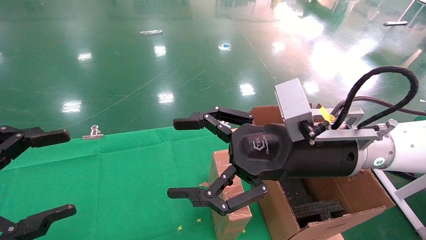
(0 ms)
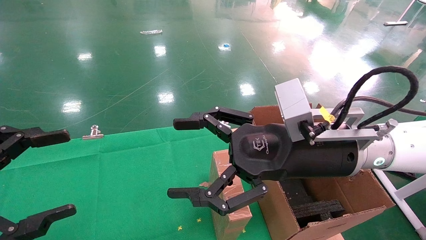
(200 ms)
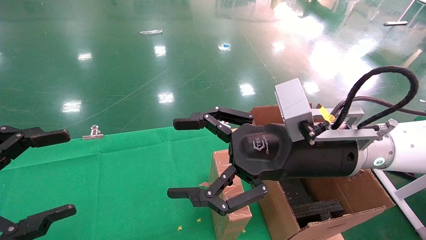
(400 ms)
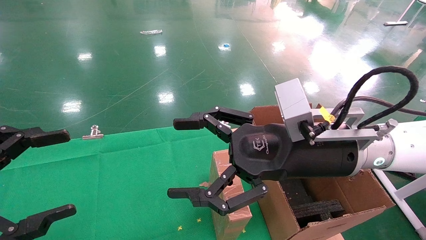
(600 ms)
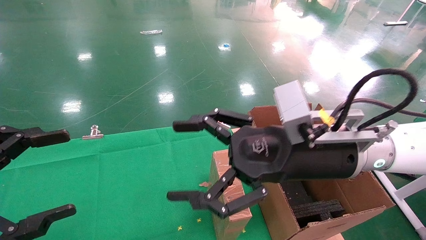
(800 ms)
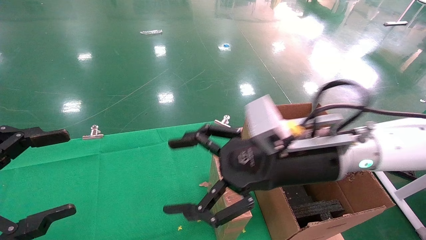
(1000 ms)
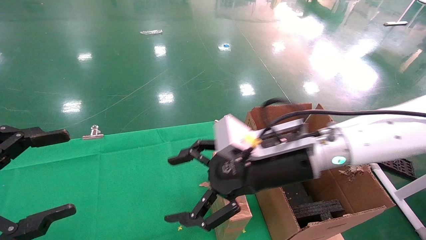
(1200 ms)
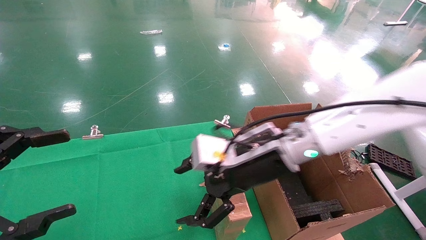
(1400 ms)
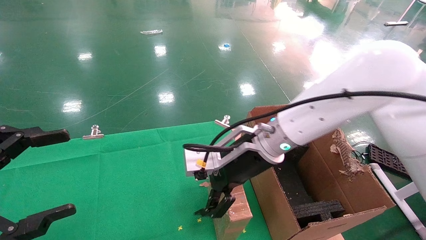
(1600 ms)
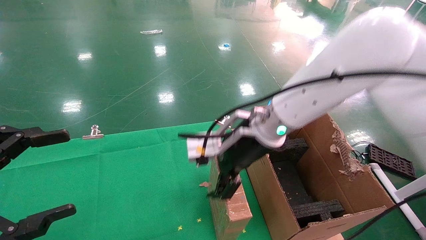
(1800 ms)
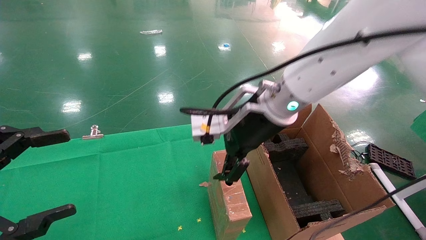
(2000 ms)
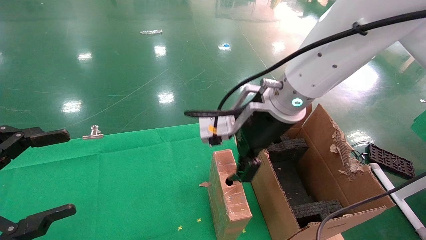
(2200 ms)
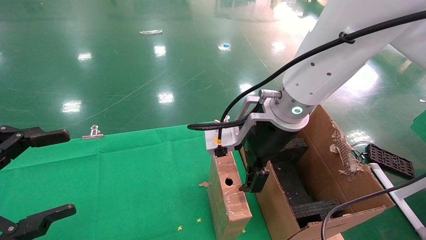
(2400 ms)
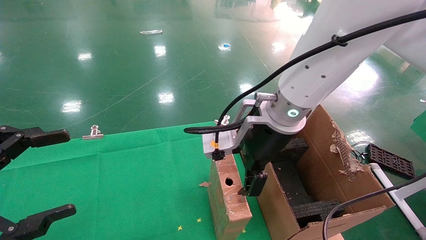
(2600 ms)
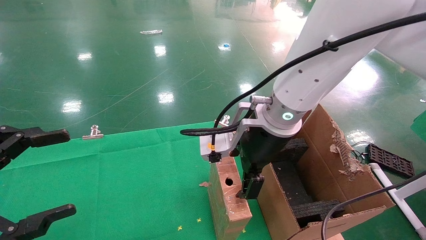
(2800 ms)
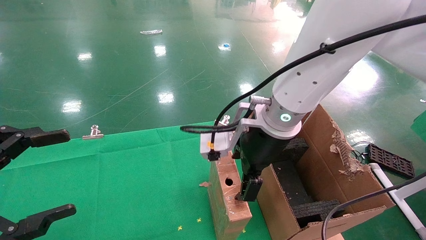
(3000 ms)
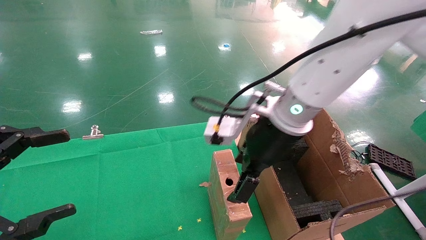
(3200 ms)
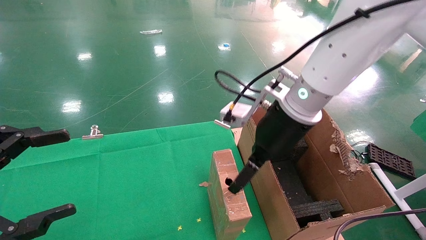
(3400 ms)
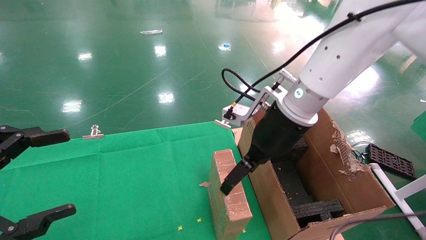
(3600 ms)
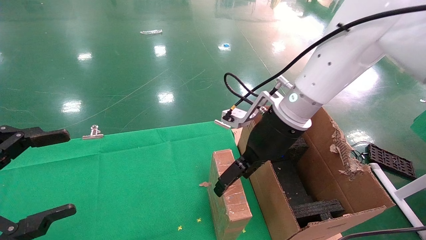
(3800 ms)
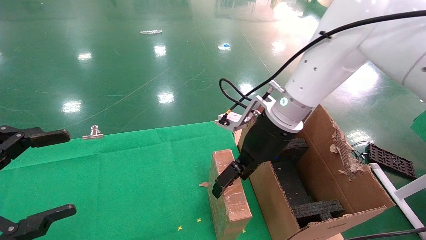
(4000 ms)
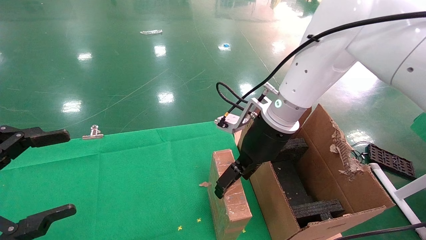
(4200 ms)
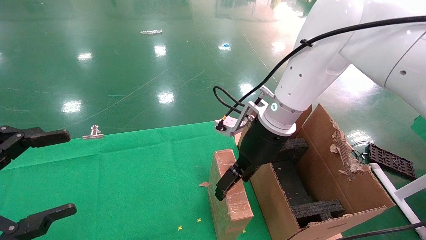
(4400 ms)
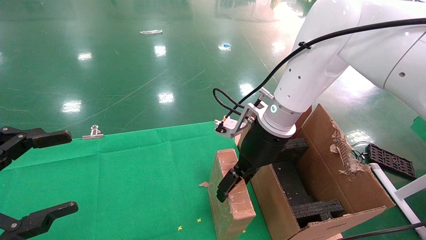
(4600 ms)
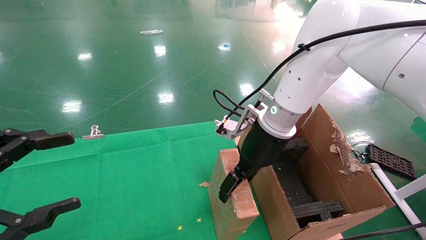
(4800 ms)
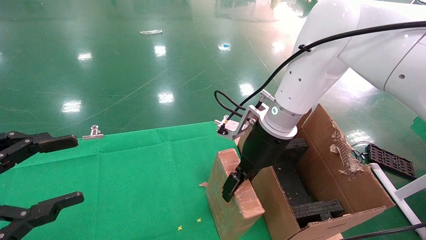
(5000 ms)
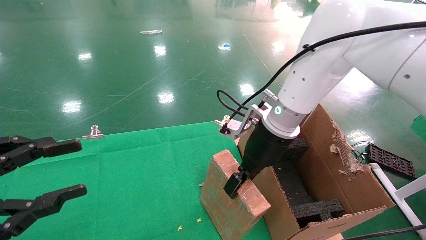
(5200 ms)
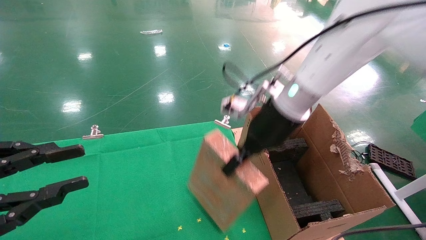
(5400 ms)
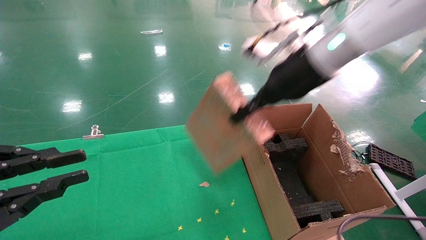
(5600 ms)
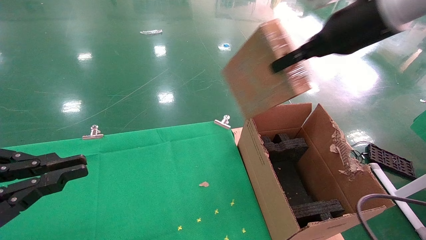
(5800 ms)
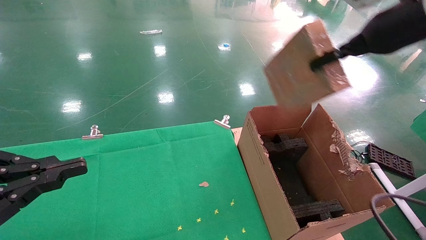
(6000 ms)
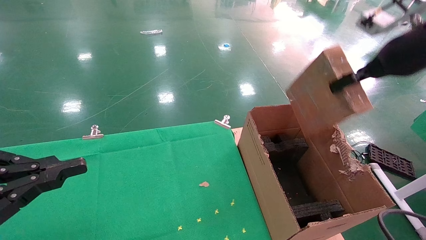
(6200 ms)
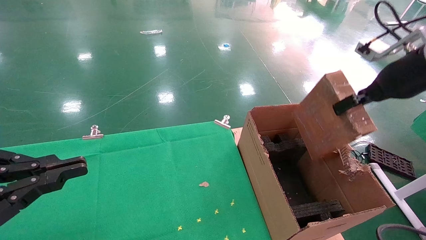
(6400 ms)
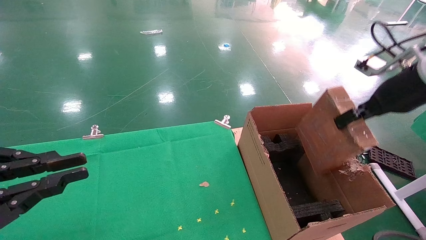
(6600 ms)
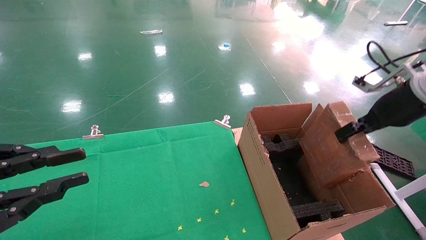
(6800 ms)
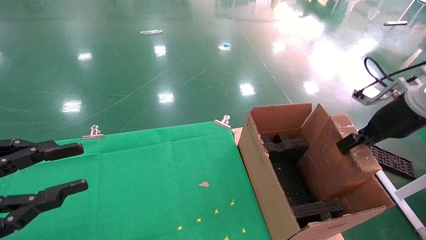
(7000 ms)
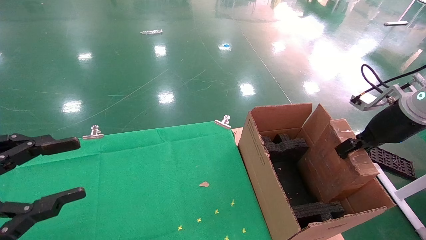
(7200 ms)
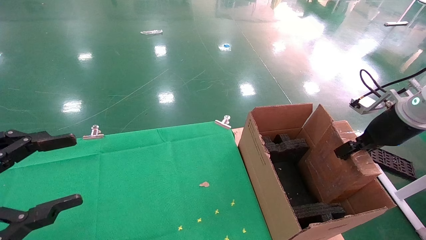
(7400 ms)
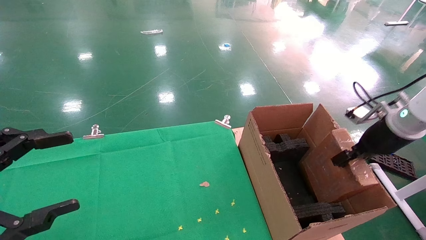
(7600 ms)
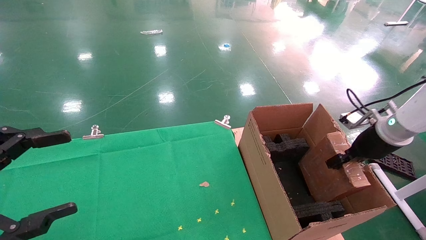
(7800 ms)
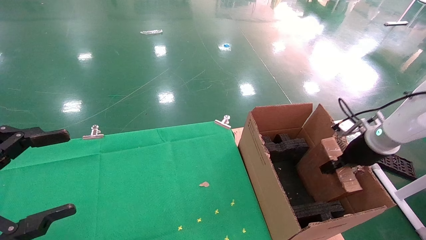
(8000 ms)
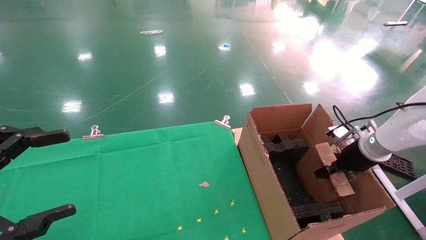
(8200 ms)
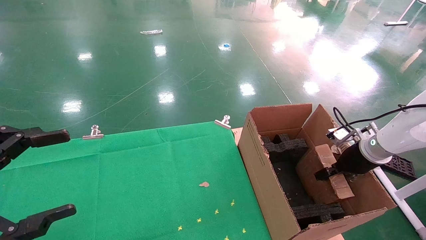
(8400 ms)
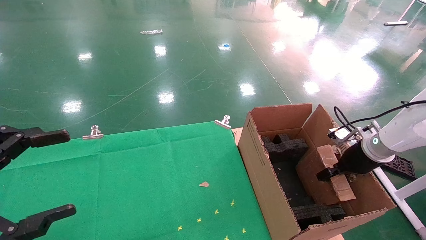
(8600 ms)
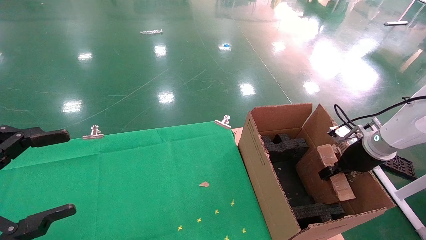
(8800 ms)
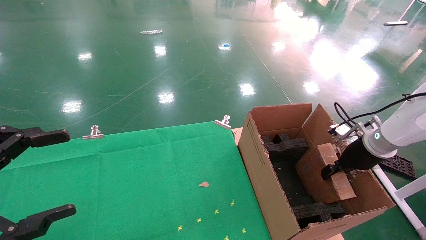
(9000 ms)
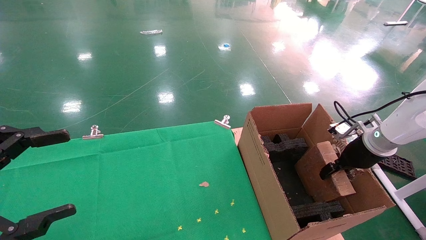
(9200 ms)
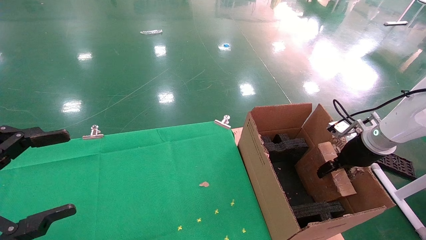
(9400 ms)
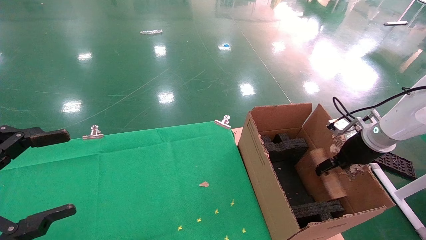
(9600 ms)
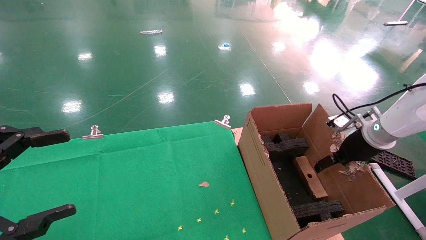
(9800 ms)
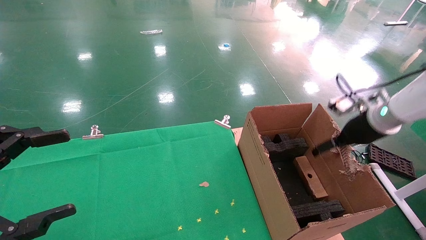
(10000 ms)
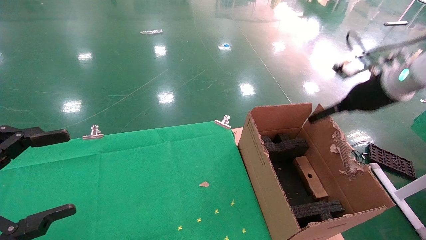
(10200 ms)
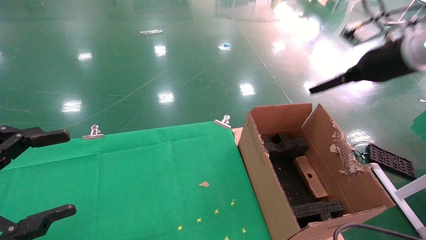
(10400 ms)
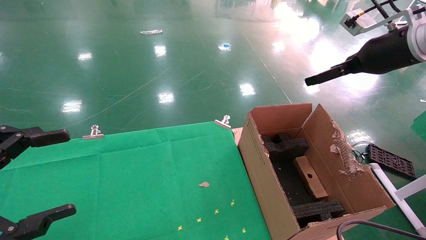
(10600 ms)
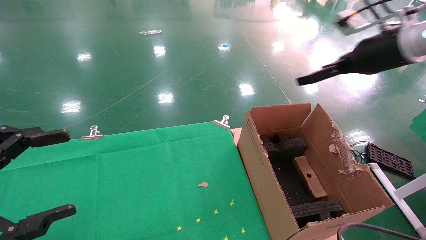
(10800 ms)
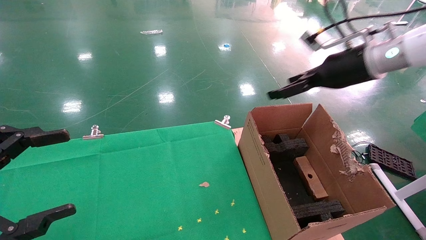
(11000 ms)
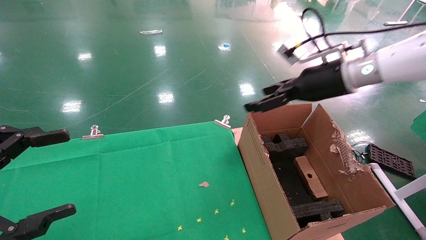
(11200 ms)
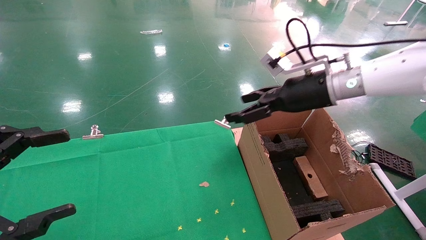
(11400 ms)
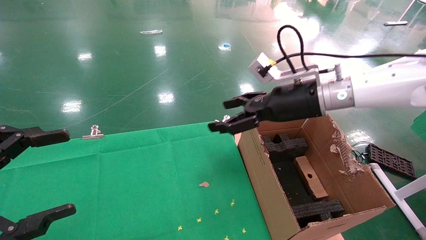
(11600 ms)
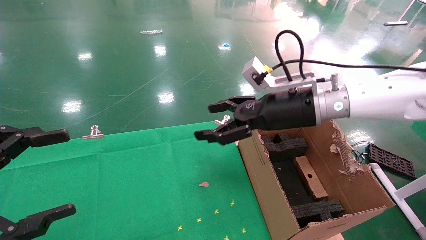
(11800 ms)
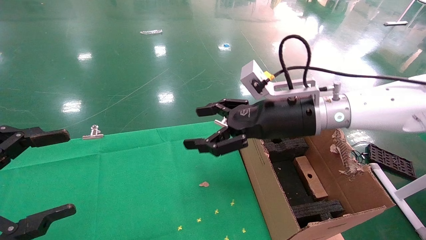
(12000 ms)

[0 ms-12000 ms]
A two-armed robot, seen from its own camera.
Task of the whole recording: using a robotic arm to pick up a cardboard box and palace it the carton.
Step, 1000 ms to 5200 ms: Pick up the mouse and the power cord paper box.
Step, 5400 ms to 9800 ms: Place the mouse and the power cord paper box into the container.
0 ms to 1600 ms: The right gripper moves forward and to the left, about 10 cm.
1600 ms to 3000 ms: The right gripper ends up about 5 cm from where it was.
3000 ms to 4400 ms: The right gripper moves forward, approximately 5 cm.
4400 ms to 6000 ms: The right gripper travels to the right and upward by roughly 25 cm, and closes. The left gripper closes.
6000 ms to 7600 ms: The right gripper shifts roughly 20 cm downward and to the right, while the left gripper opens up.
7600 ms to 9000 ms: The right gripper is displaced downward by about 5 cm.
9000 ms to 10400 ms: The right gripper shifts about 20 cm upward, and opens up.
10400 ms to 12000 ms: The right gripper goes about 25 cm to the left and downward.

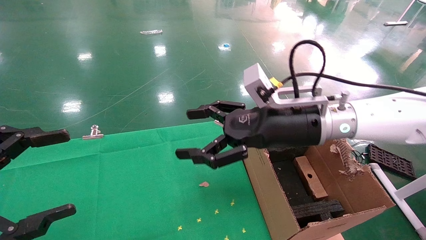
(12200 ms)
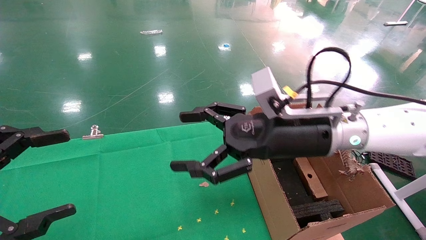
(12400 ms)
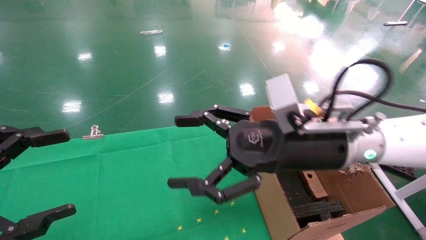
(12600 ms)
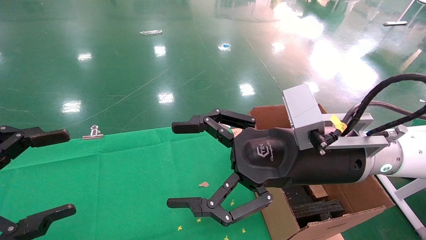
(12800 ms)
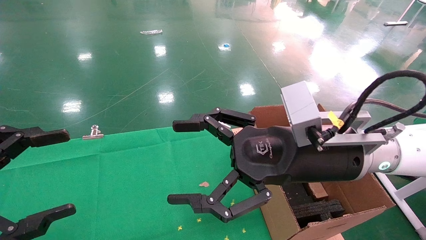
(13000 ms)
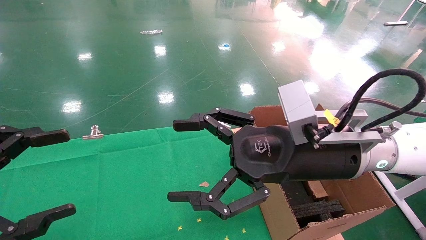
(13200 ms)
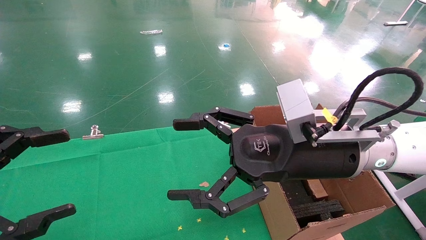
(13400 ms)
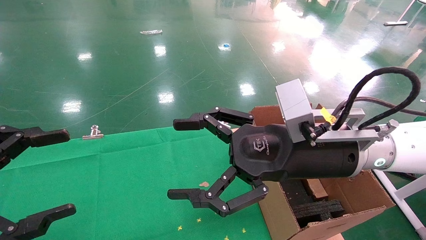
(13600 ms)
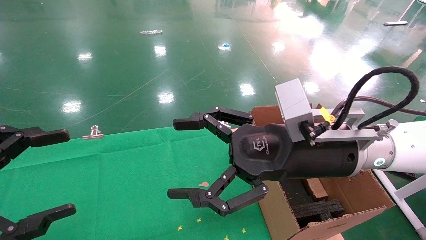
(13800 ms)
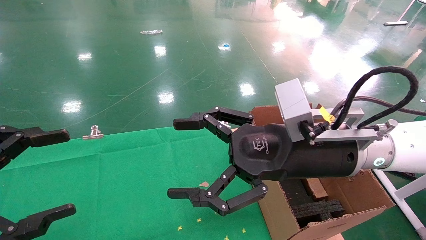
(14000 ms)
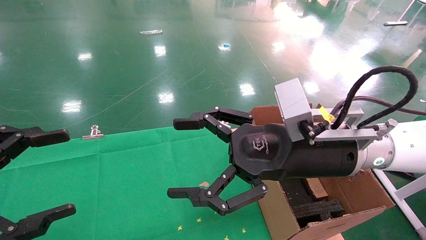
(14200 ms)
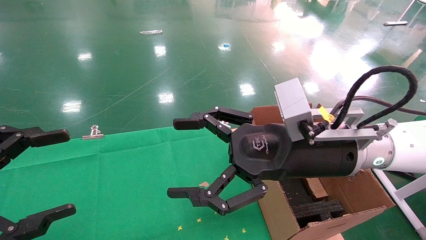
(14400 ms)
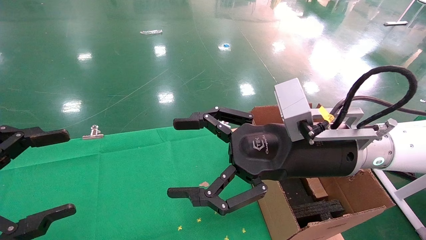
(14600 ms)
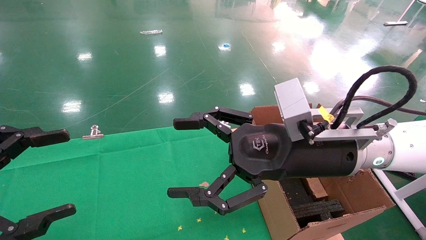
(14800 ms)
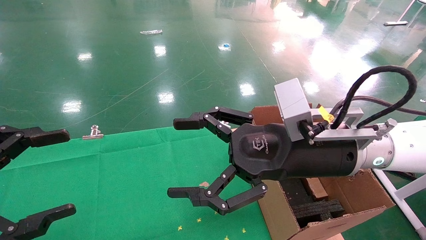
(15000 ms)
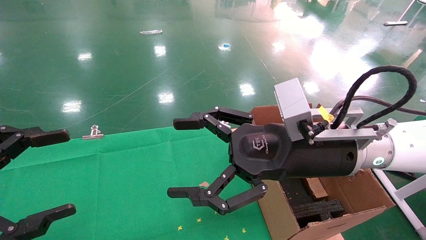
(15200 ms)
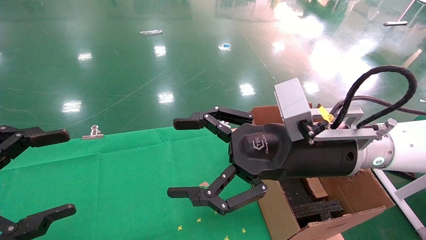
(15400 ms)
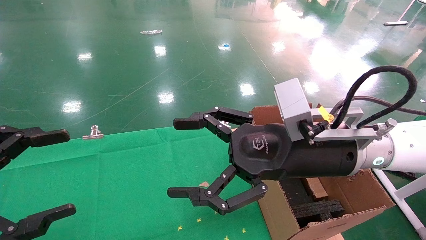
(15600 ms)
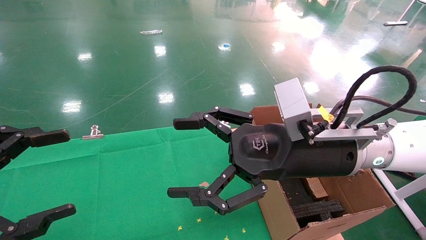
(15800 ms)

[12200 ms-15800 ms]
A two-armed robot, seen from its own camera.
Task of the whole recording: using a robotic arm to pick up a cardboard box and palace it the carton.
12200 ms to 14000 ms: The right gripper moves backward, roughly 5 cm.
14000 ms to 15800 ms: Neither gripper changes place.

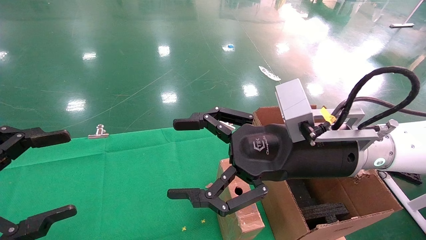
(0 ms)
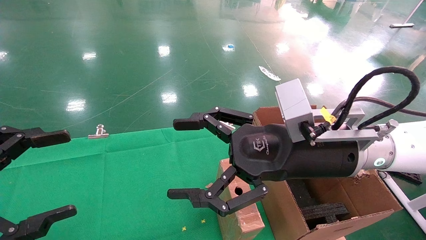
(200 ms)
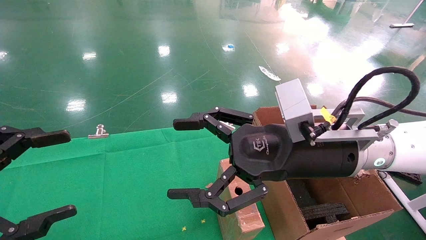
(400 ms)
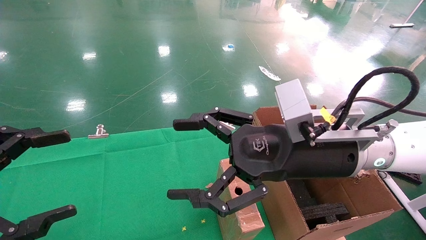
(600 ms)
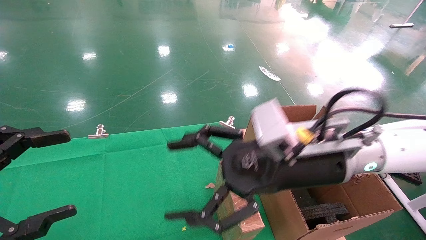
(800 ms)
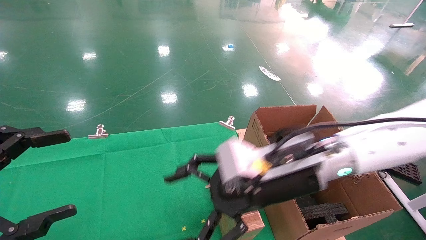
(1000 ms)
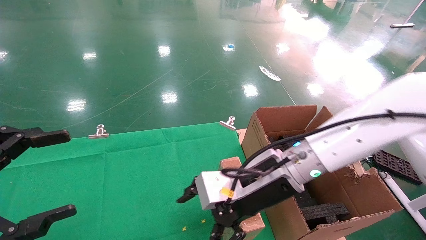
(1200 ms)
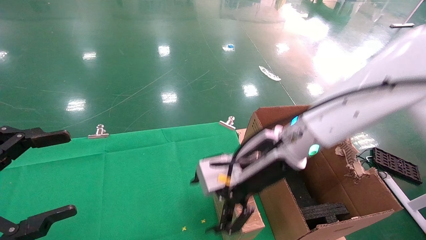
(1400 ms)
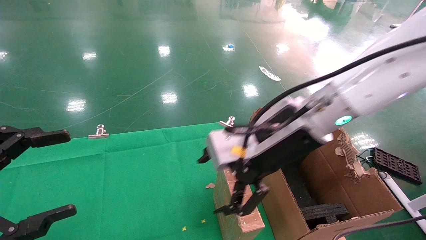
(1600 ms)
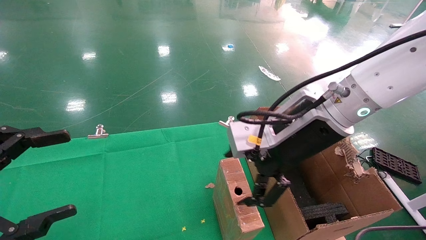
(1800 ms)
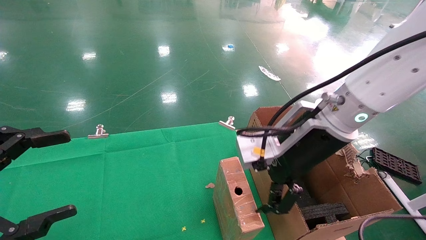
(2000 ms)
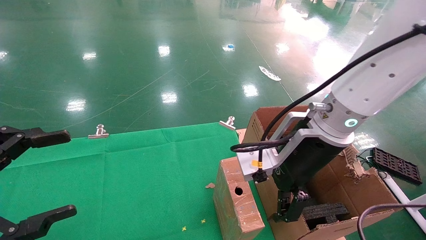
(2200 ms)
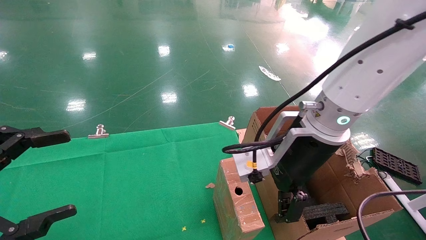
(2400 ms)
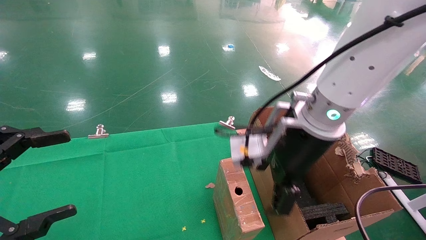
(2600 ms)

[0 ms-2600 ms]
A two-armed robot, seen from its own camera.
Task of the whole recording: using a robotic arm to pick up a cardboard box and palace it the carton.
0 ms to 1200 ms: The right gripper moves roughly 5 cm.
1200 ms to 2600 ms: The right gripper shifts approximately 5 cm upward.
